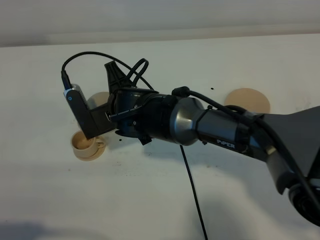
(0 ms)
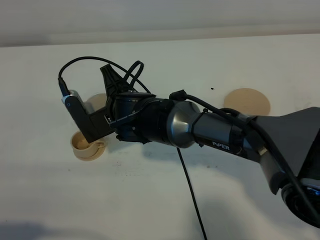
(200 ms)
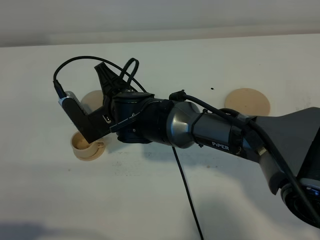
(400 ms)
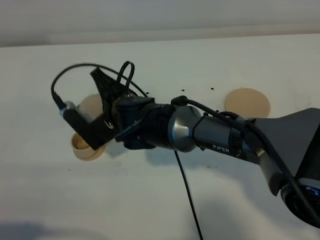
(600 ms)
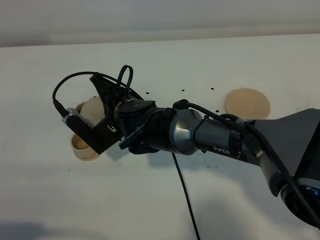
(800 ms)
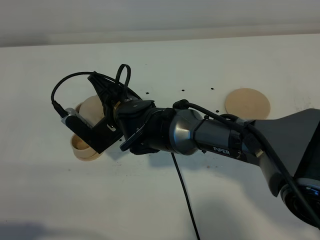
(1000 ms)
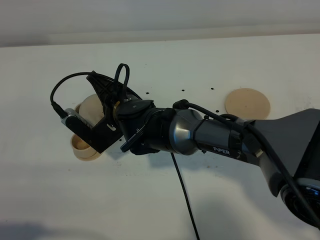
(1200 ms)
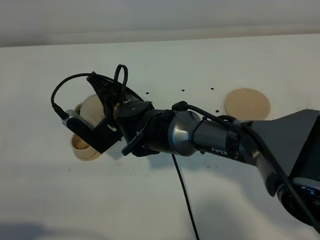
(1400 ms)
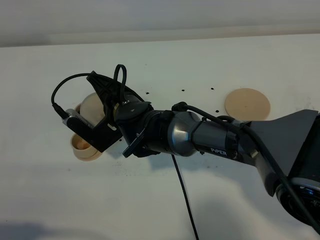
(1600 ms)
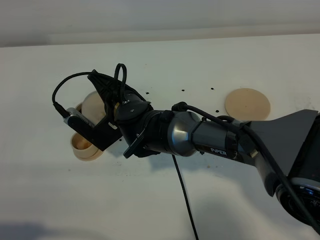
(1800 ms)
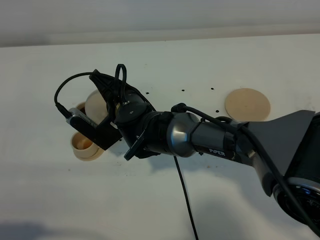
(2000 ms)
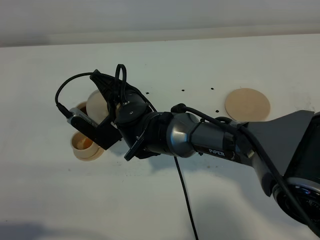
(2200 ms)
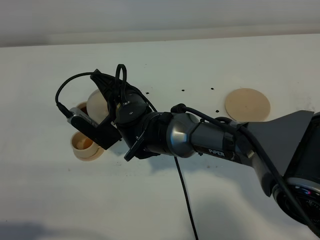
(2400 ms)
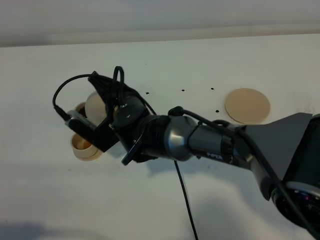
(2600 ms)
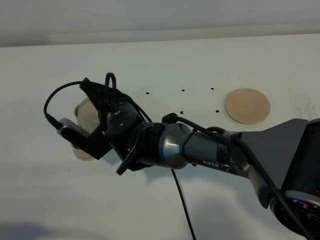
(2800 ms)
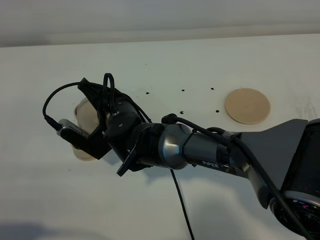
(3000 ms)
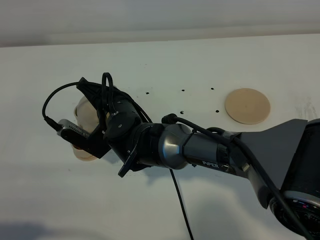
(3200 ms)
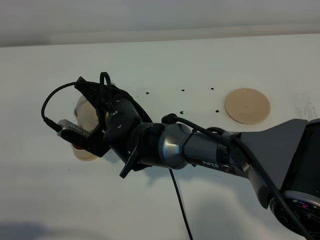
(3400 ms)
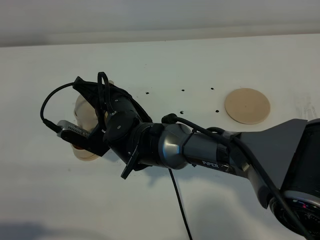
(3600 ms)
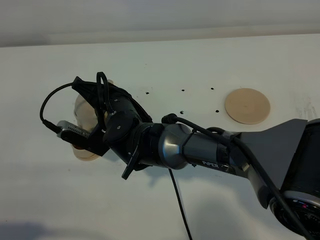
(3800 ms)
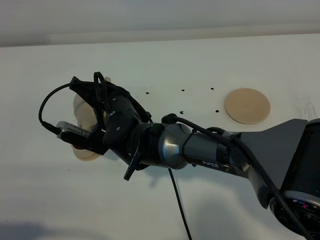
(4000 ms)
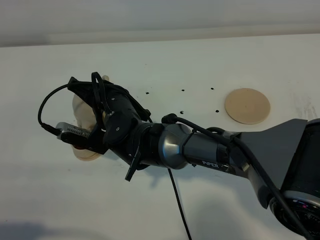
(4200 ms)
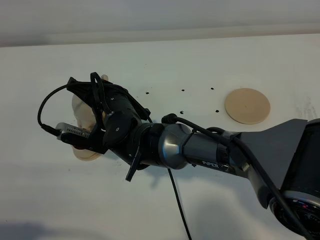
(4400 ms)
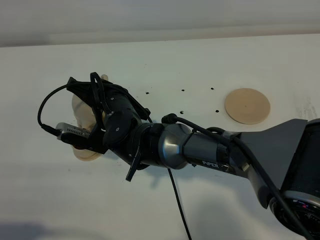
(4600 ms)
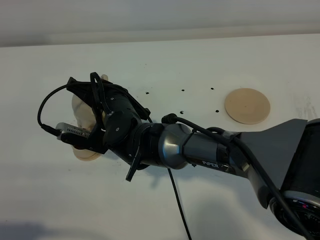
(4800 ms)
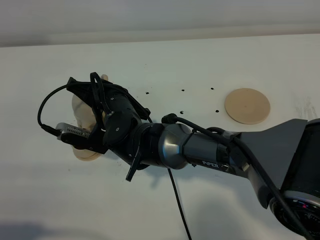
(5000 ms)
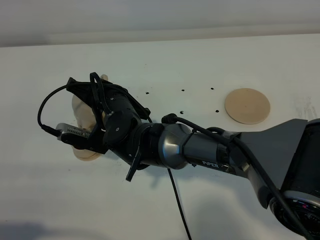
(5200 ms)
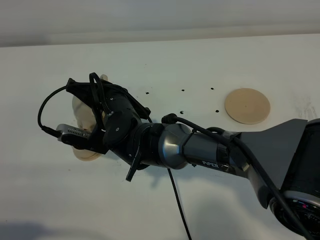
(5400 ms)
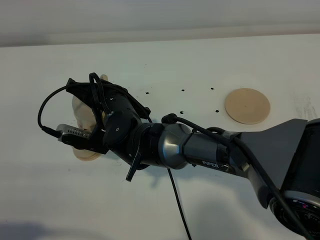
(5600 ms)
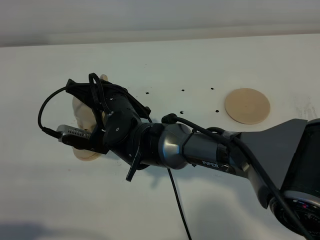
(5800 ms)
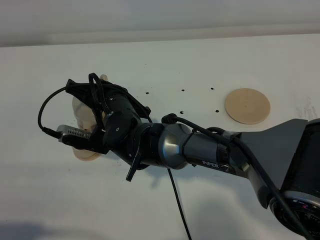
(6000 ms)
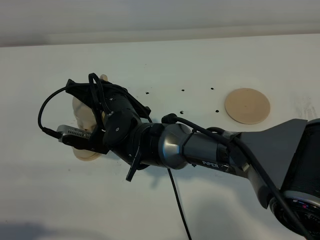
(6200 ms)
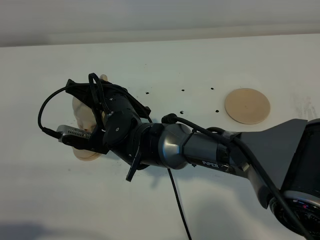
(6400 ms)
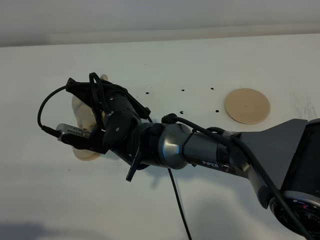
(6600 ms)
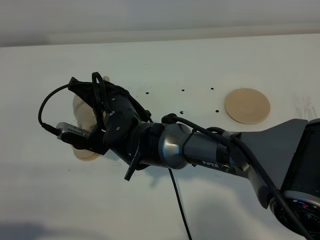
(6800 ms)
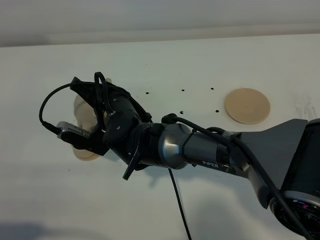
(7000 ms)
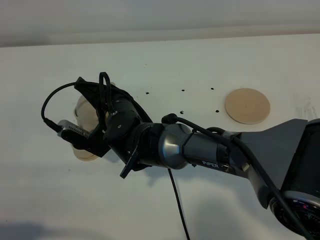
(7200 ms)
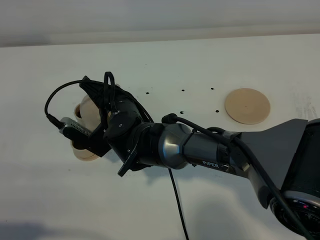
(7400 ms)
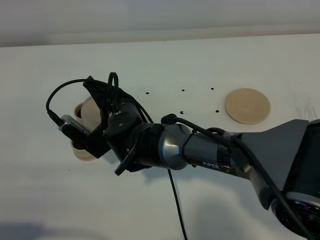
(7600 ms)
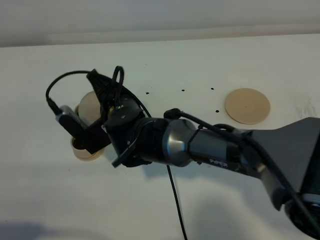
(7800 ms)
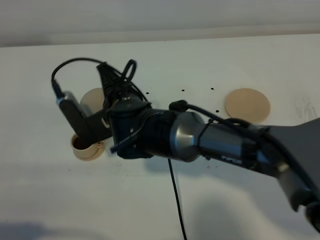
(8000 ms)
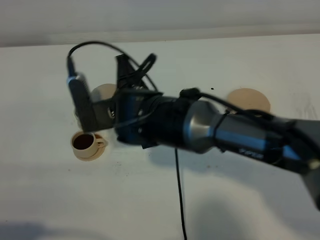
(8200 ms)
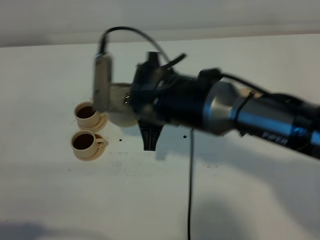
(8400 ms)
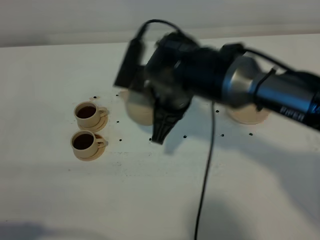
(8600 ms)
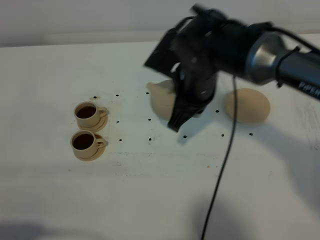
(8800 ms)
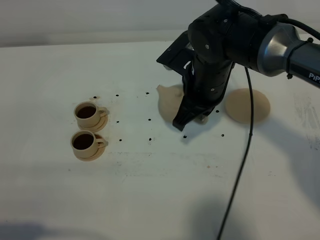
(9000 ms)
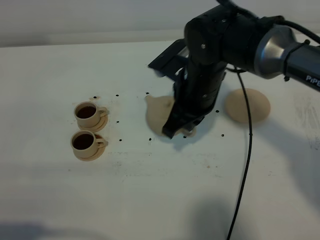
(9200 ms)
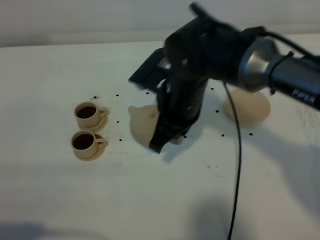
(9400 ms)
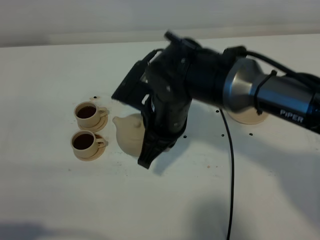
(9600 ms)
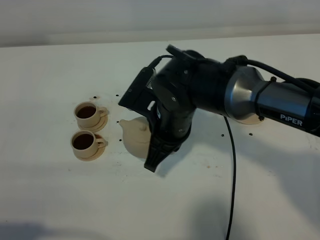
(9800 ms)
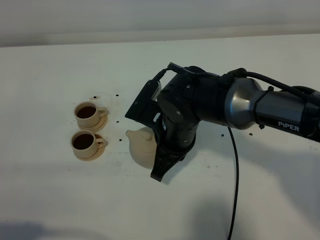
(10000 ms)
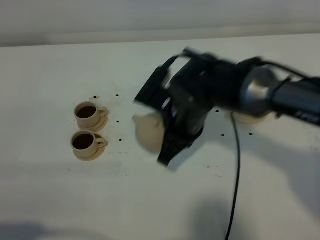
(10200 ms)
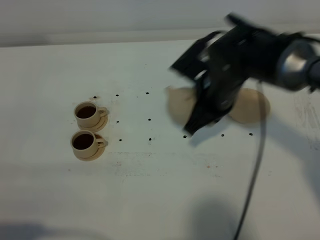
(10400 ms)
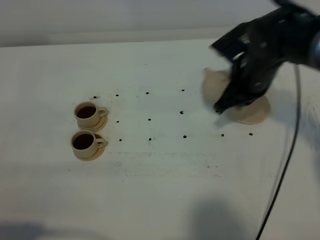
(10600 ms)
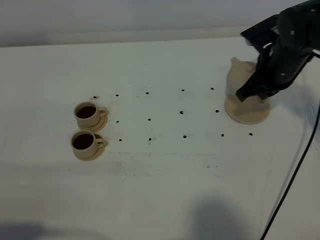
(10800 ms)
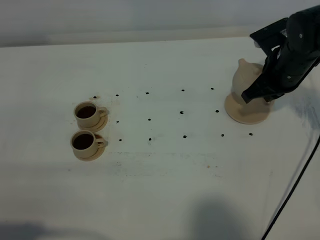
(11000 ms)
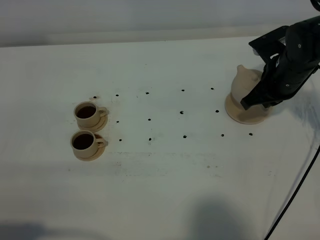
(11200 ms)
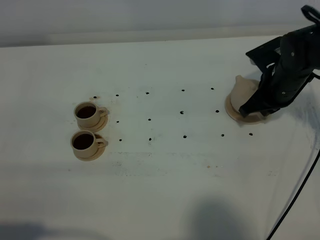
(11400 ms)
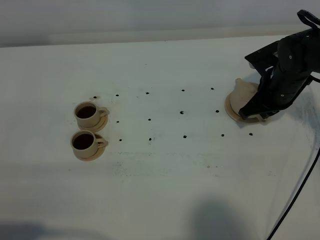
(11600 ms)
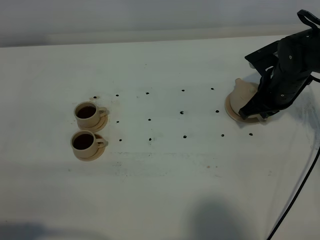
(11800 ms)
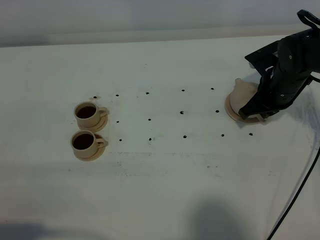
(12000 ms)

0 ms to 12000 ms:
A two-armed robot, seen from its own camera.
Task of the whole recording: grasp the brown teapot and pour the tea into the two brown teacups one by one, put the brown teapot back in its original place.
Step, 0 ms to 7800 ms: Pour tea into the teacup with the right gripper.
1600 ms to 3000 ms: The grippers make only small movements.
3000 ms to 4400 ms: The grippers make only small movements.
4400 ms to 6000 ms: Both grippers stay about where they are.
7600 ms to 9000 ms: The right gripper is displaced to the right and upward by approximately 15 cm.
10400 ms to 12000 ms: The right gripper goes some 15 cm to the right and downward.

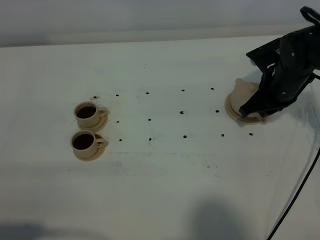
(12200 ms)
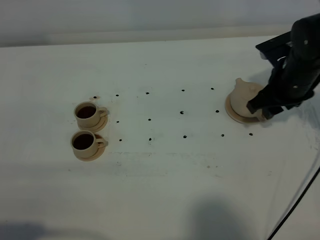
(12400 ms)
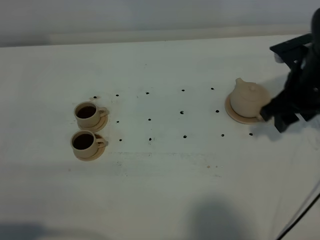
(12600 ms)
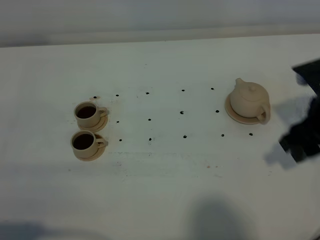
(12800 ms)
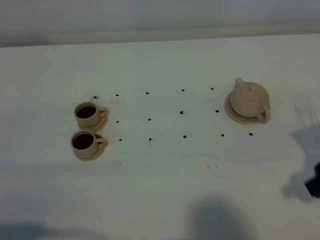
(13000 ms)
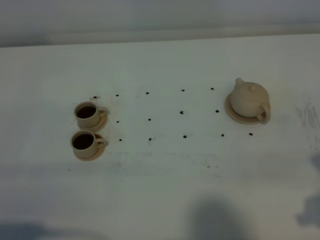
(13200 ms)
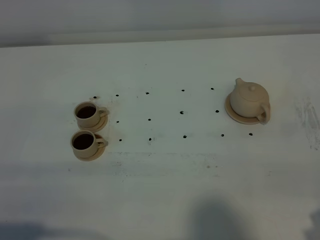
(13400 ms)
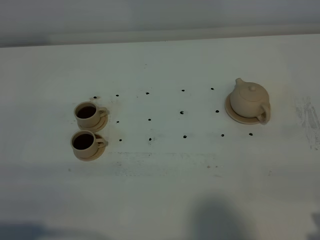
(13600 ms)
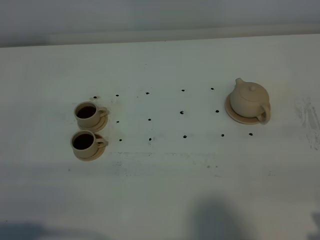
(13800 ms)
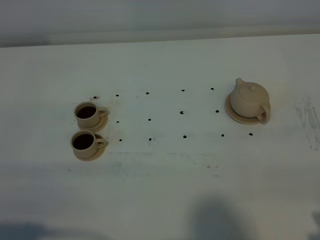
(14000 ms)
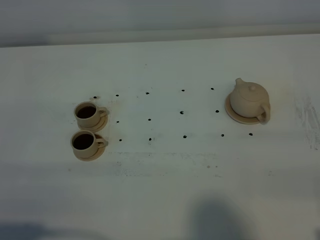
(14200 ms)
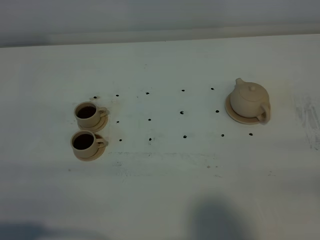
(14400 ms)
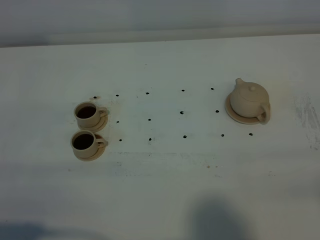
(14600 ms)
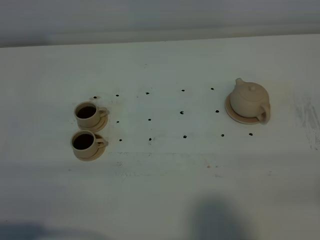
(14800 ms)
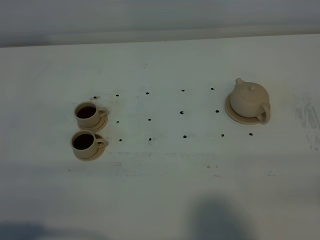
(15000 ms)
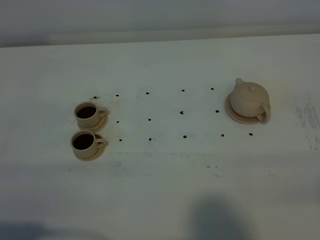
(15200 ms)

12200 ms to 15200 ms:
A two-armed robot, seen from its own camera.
Task of the whole recording: grasp the brown teapot and pour the tea into the two brown teacups one by one, put the brown teapot back in its original place.
12200 ms to 13800 ms: The right gripper travels backward by some 30 cm, and opens up.
